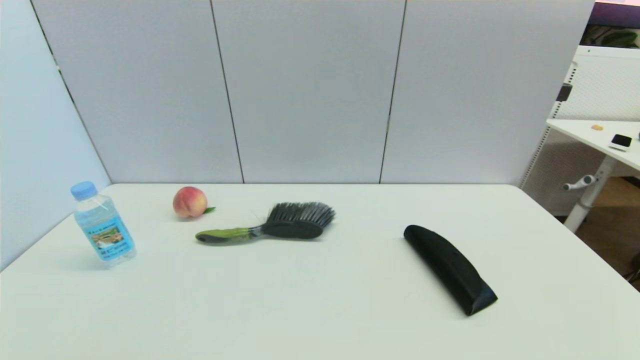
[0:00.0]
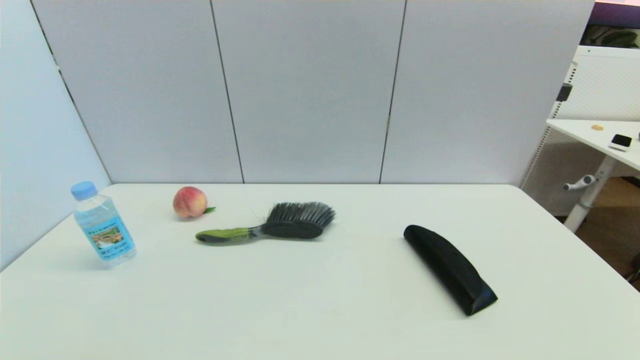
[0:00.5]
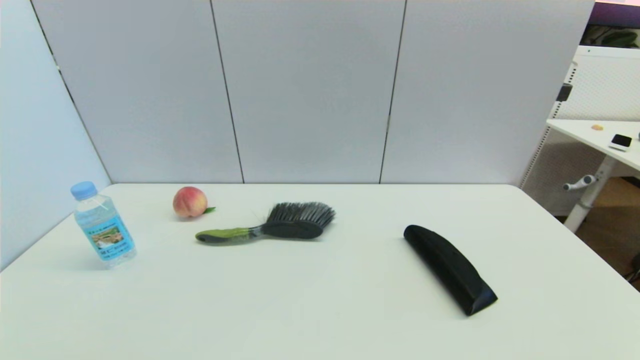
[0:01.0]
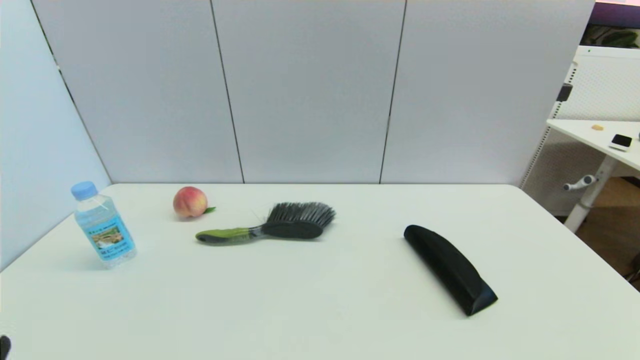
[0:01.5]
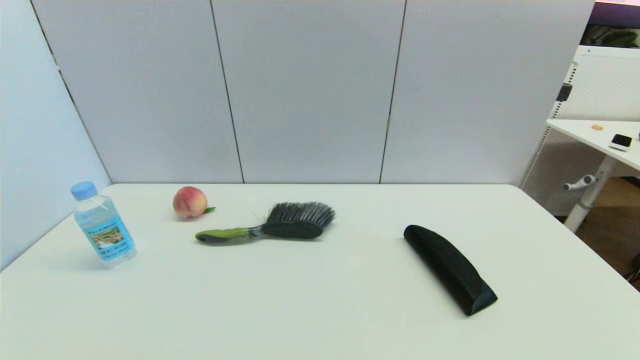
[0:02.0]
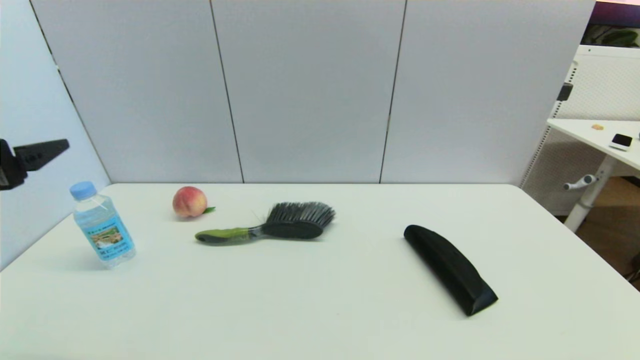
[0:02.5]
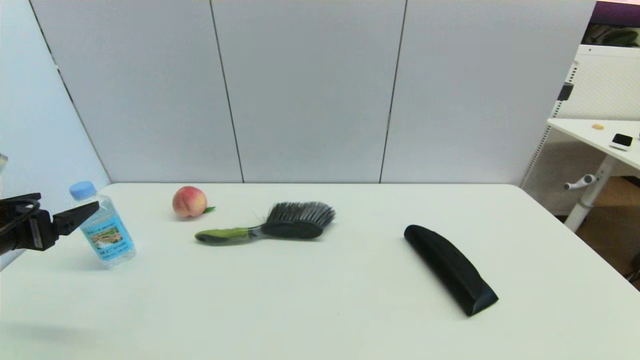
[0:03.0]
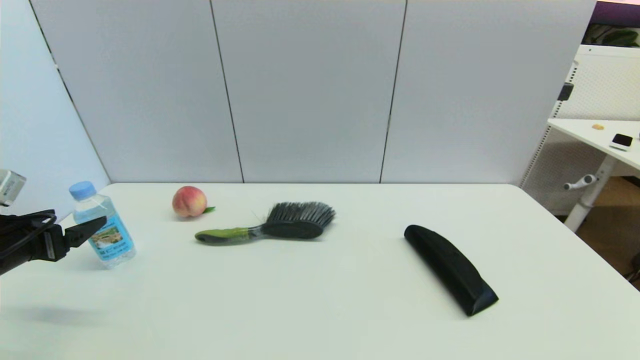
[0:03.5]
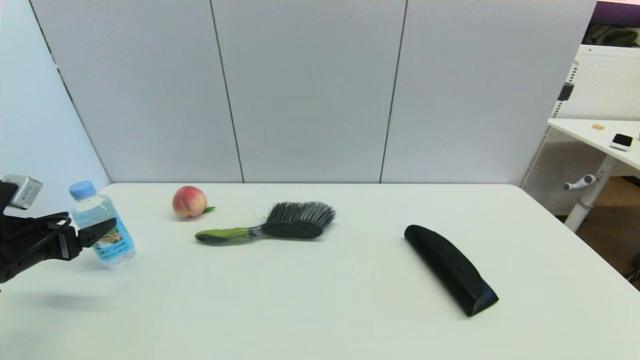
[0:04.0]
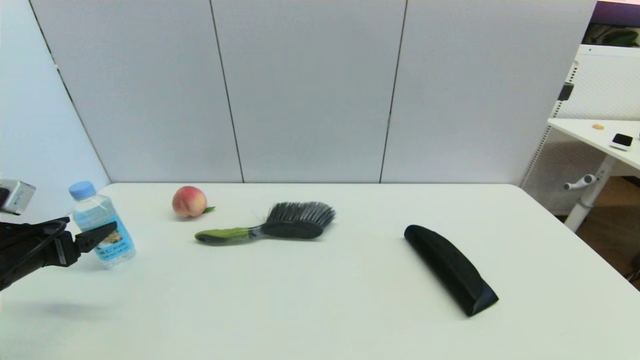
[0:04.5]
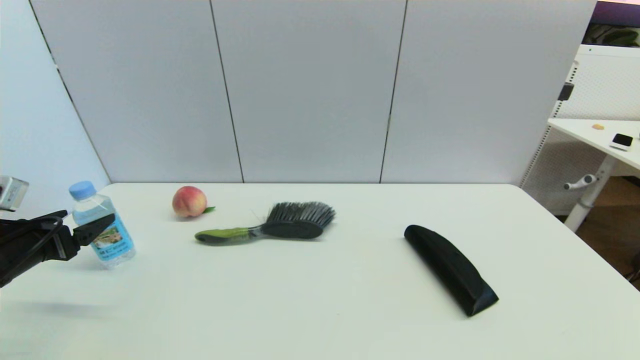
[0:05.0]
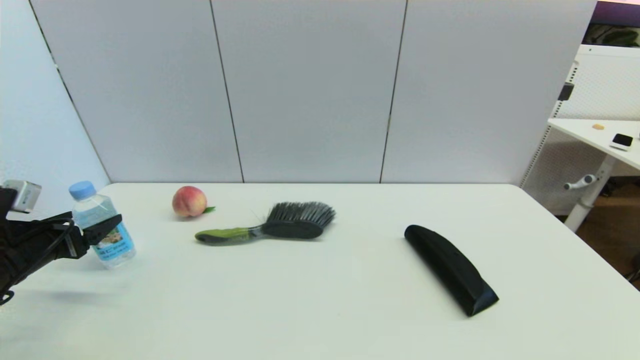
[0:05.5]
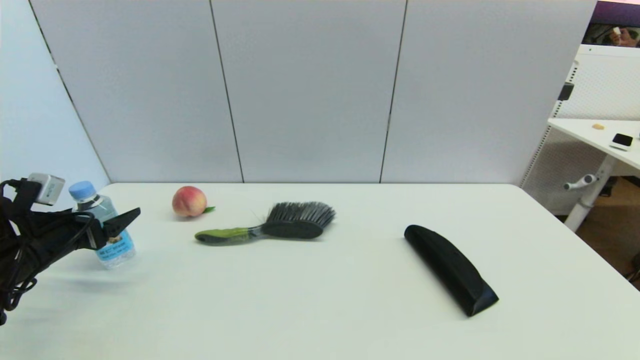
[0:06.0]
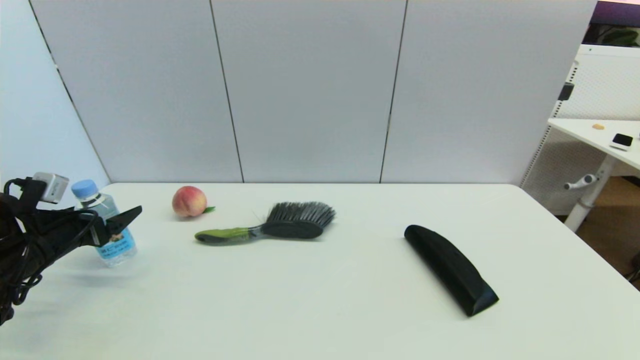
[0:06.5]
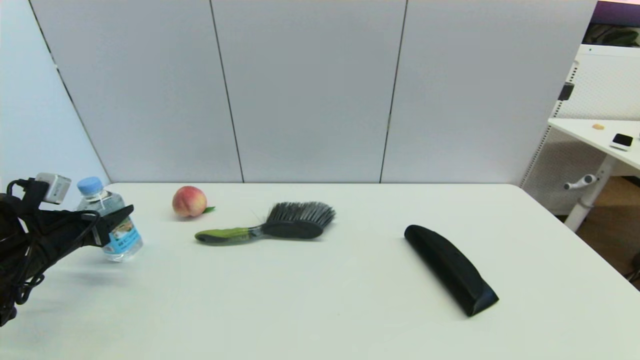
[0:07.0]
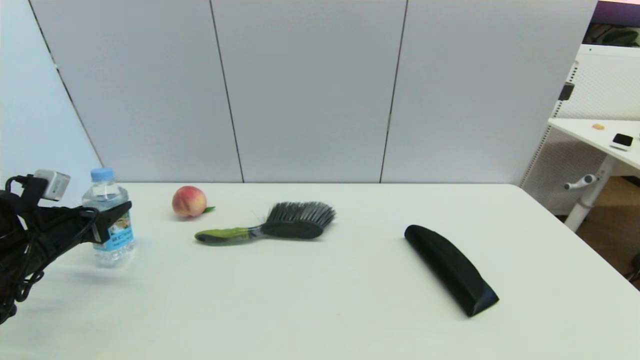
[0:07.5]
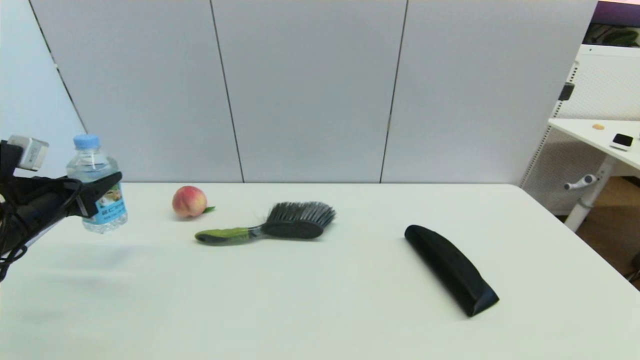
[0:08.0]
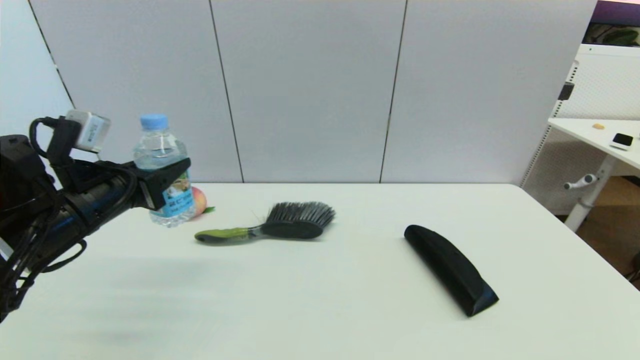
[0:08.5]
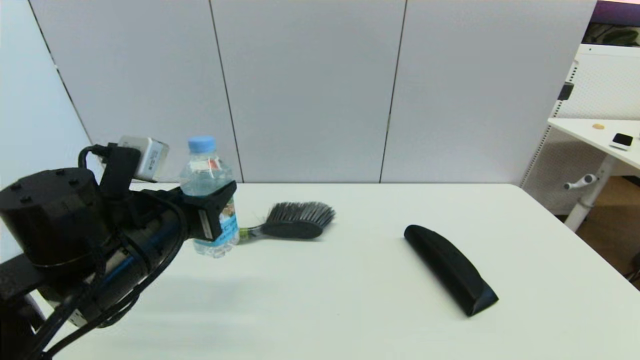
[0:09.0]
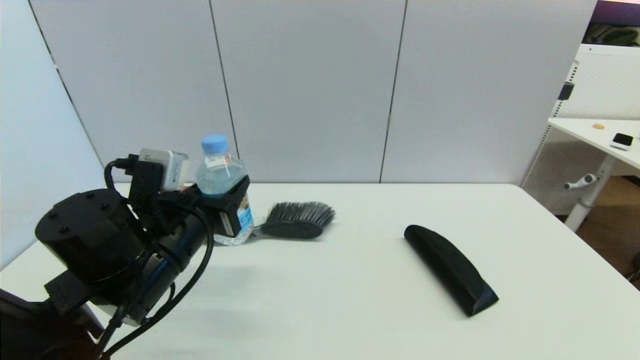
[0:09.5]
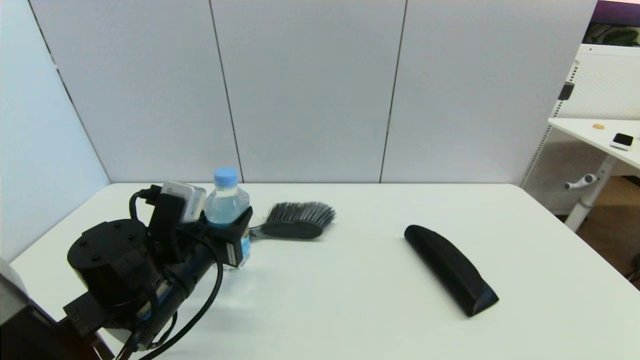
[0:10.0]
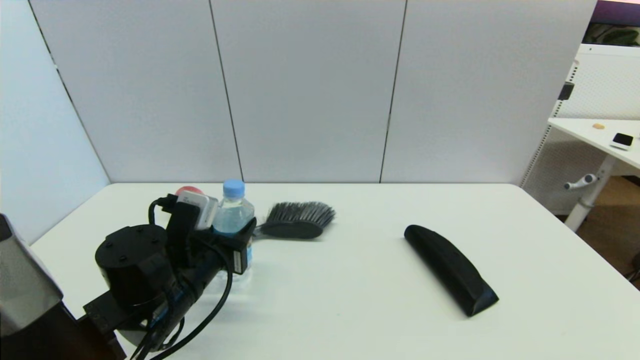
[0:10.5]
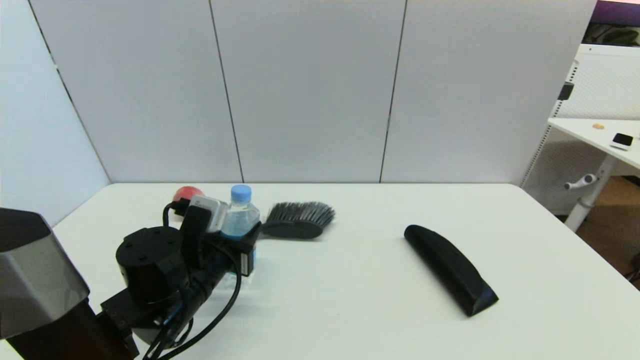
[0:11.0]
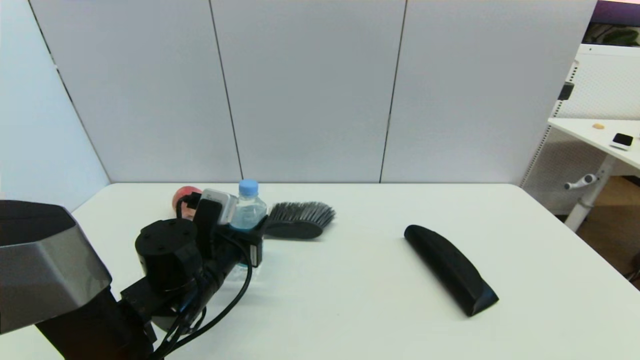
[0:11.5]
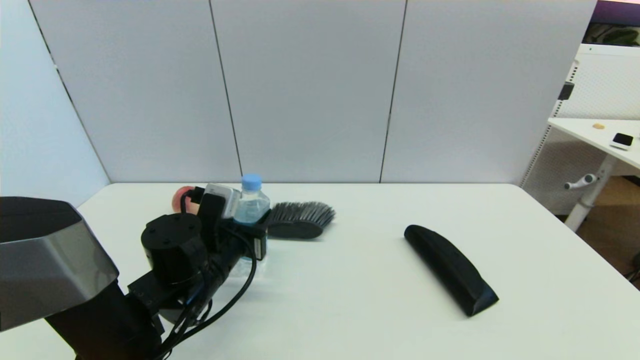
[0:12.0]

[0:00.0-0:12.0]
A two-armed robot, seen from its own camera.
Step, 1.5 to 7.0 s: Grasp the soda water with left gripper.
2.0 to 4.0 s: The left gripper travels forward, downward and to the left by approximately 25 cm.
4.0 to 6.0 s: The grippers move only a little.
6.0 to 8.0 s: The left gripper shifts roughly 5 cm upward, and closes.
8.0 to 10.0 s: The left gripper is displaced to the right by about 20 cm.
10.0 to 12.0 s: The left gripper changes place by roughly 5 cm.

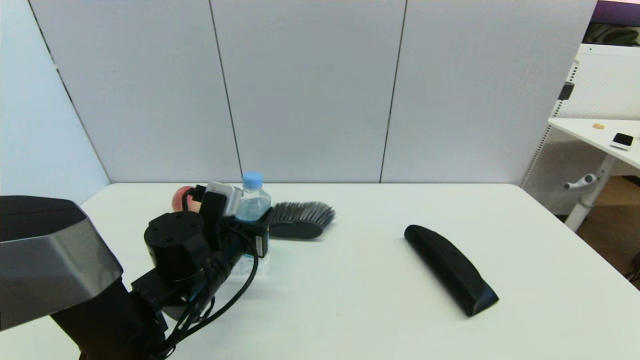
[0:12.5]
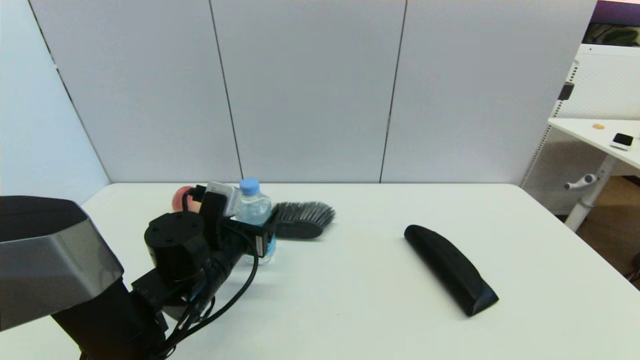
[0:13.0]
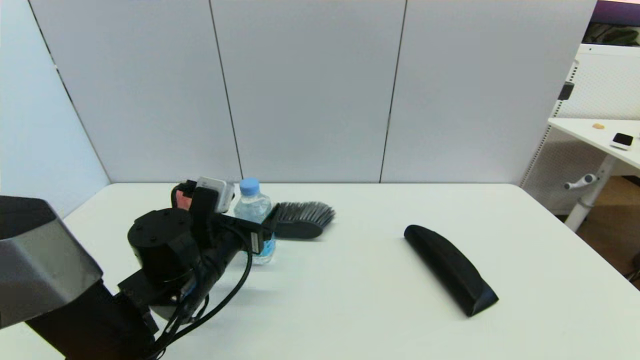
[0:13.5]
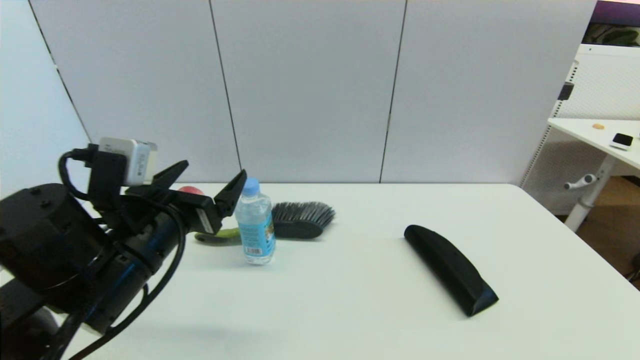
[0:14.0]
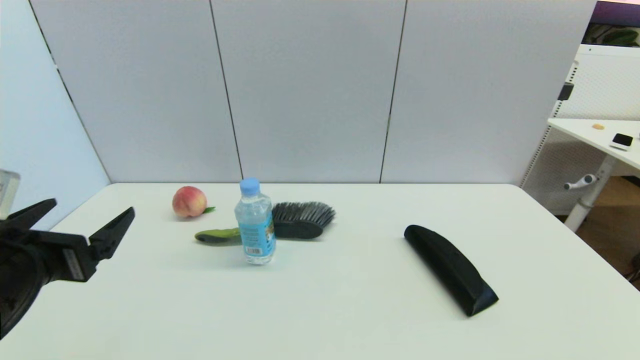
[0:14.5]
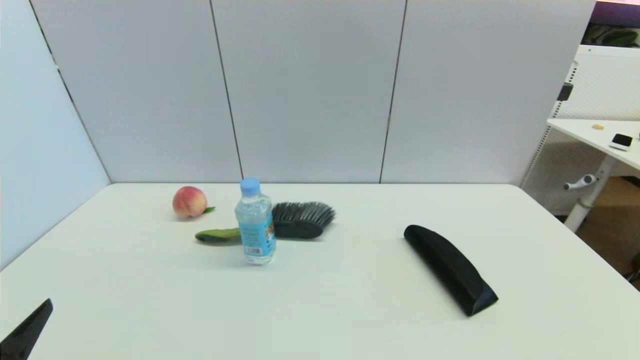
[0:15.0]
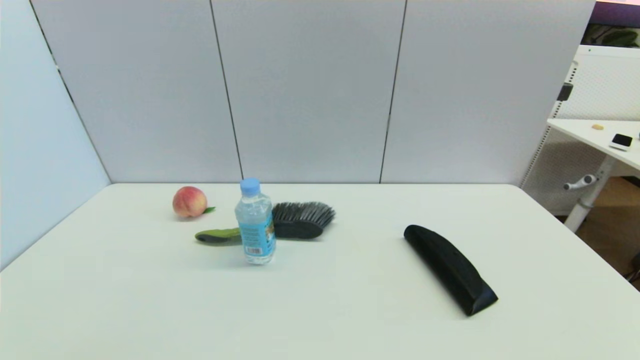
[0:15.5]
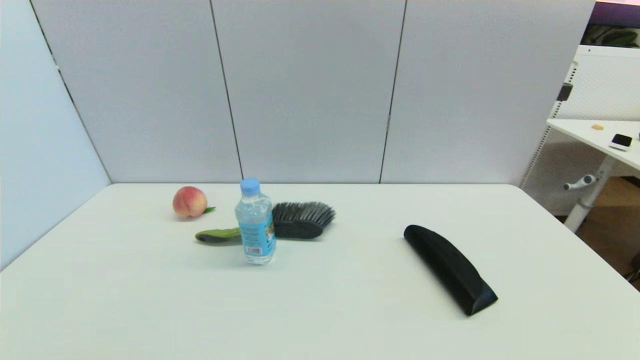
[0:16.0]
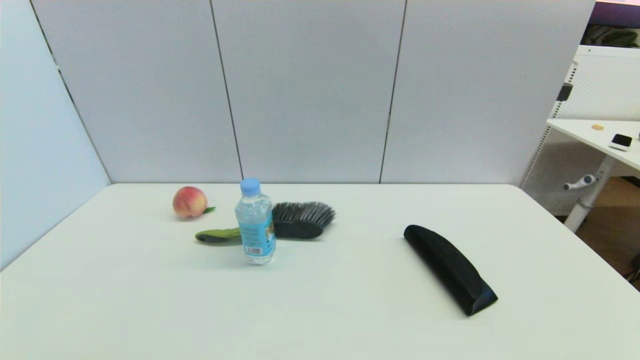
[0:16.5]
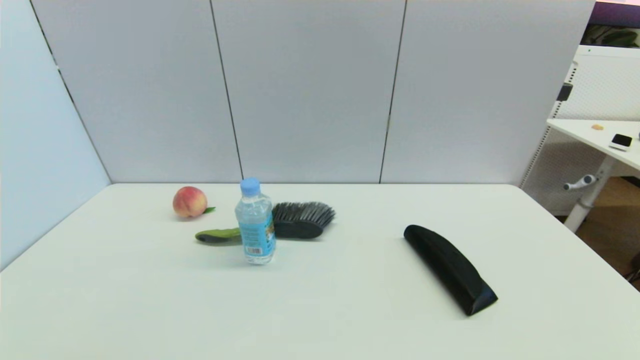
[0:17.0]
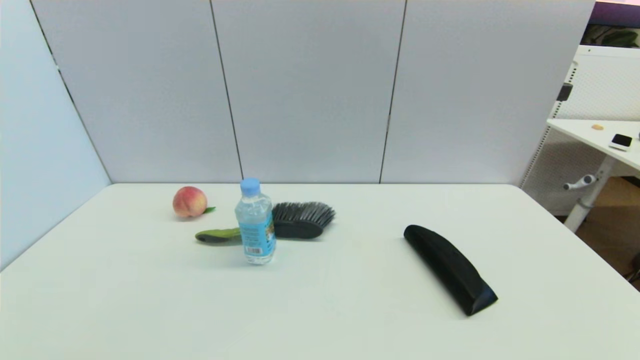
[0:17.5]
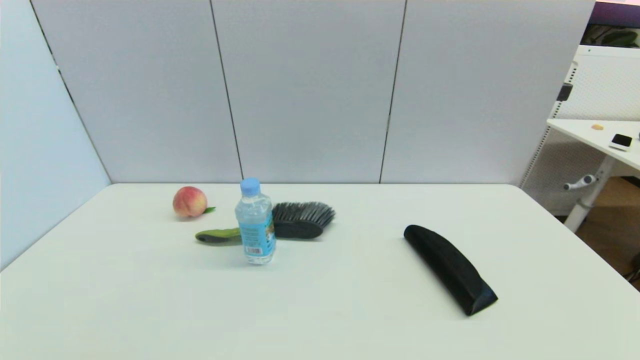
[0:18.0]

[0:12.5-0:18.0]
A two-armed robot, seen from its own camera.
12.5 to 14.5 s: The left gripper travels to the left, backward and upward by approximately 20 cm, and opens its fingers.
14.5 to 16.0 s: The left gripper shifts about 20 cm backward and downward.
16.0 to 18.0 s: Both grippers stay about where they are.

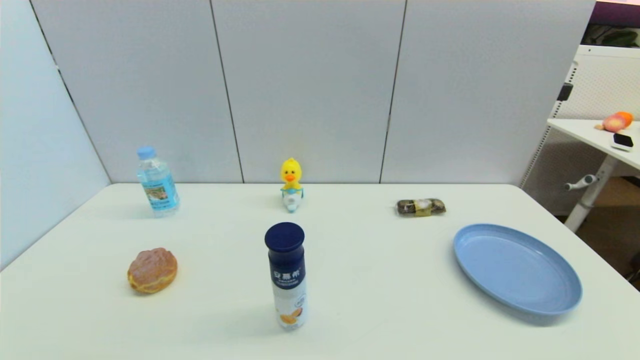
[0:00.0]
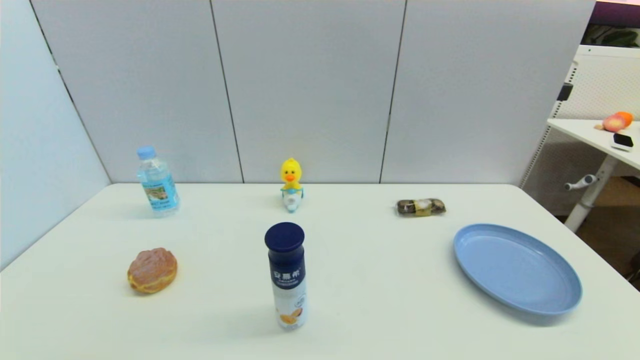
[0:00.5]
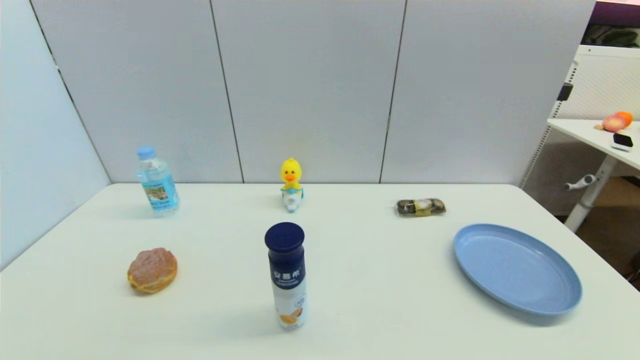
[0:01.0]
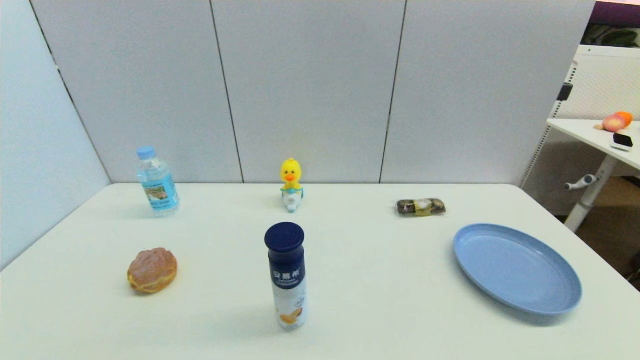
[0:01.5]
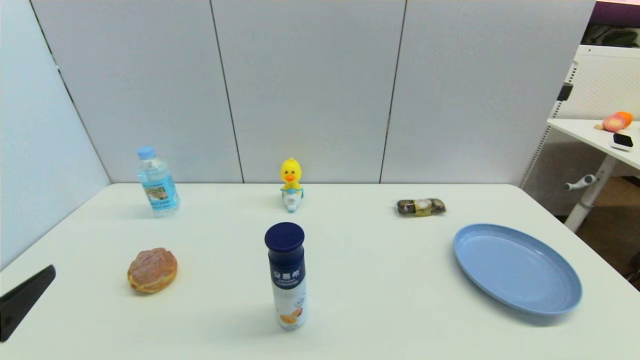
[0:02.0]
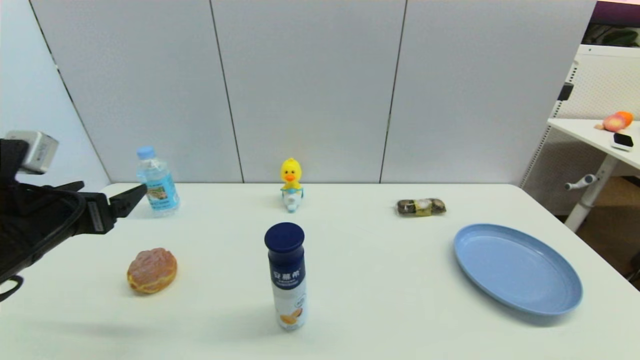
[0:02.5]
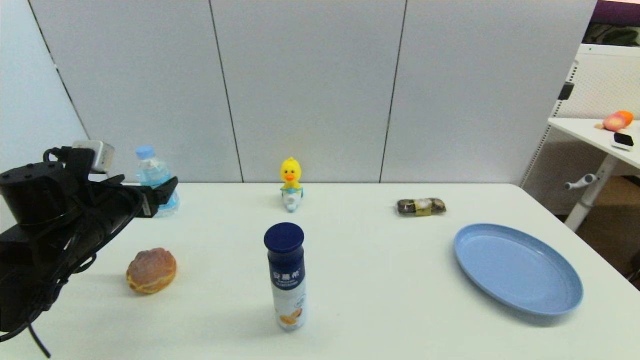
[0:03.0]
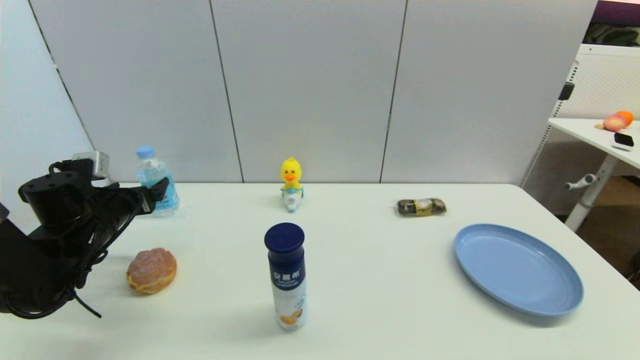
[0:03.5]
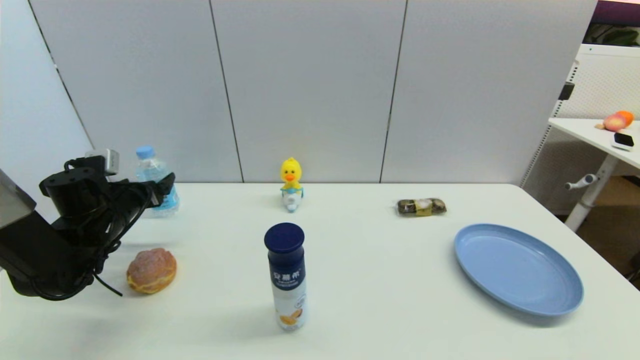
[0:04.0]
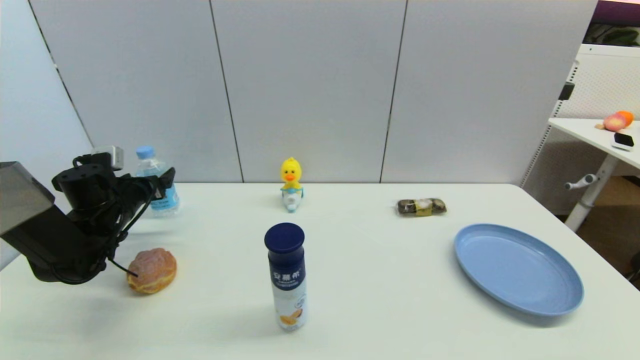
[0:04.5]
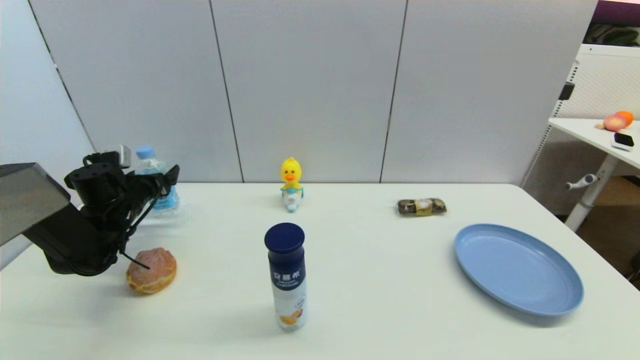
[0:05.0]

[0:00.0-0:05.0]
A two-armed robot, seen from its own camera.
0.0 to 2.5 s: The left gripper is displaced forward and upward by approximately 25 cm.
2.5 to 5.0 s: The left gripper goes about 20 cm forward and downward.
